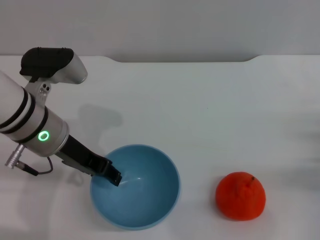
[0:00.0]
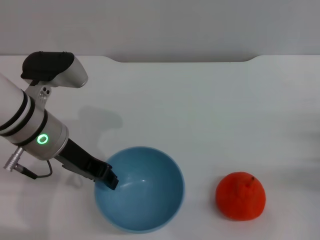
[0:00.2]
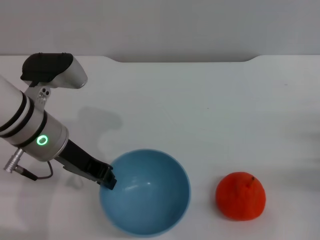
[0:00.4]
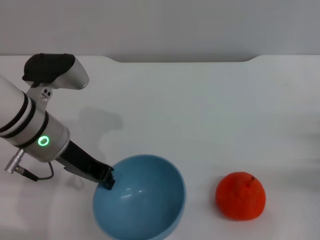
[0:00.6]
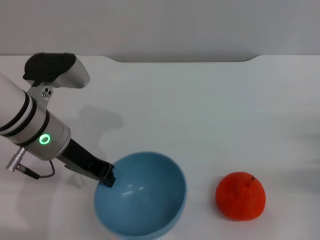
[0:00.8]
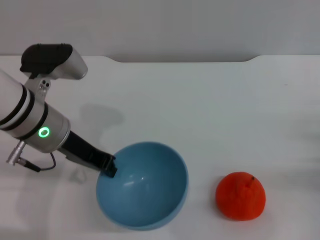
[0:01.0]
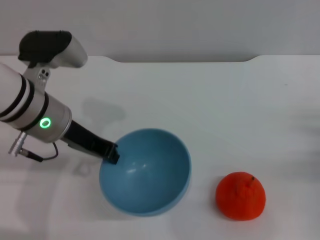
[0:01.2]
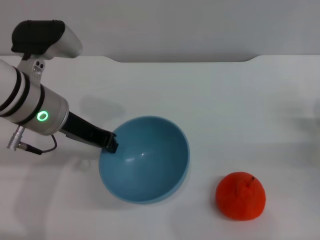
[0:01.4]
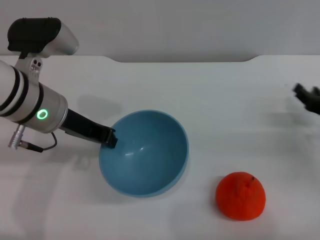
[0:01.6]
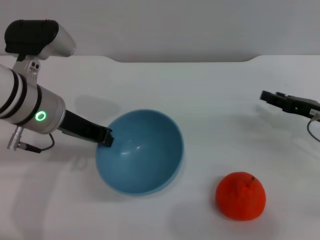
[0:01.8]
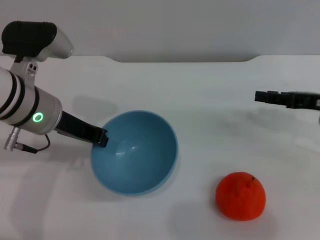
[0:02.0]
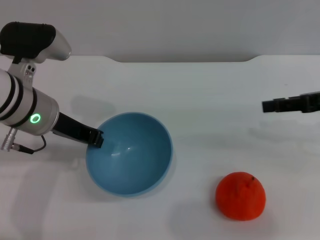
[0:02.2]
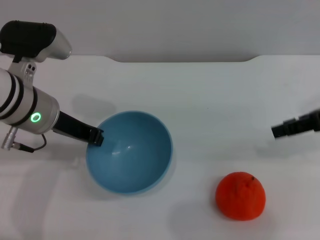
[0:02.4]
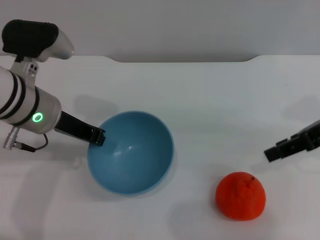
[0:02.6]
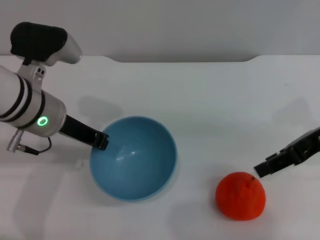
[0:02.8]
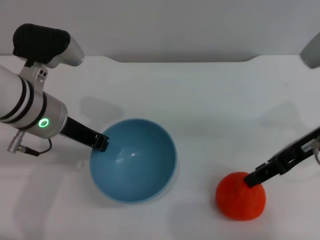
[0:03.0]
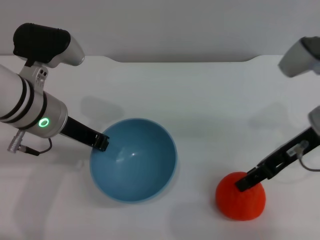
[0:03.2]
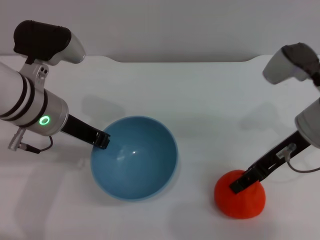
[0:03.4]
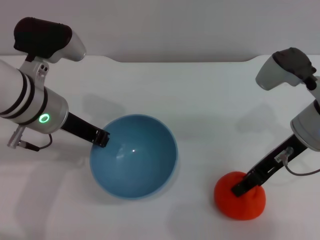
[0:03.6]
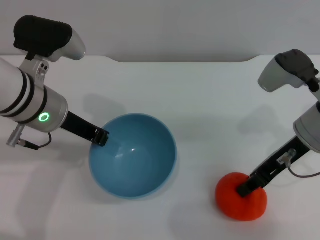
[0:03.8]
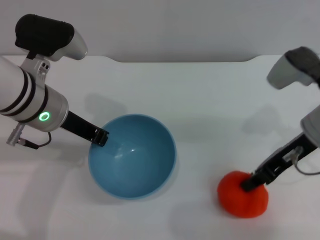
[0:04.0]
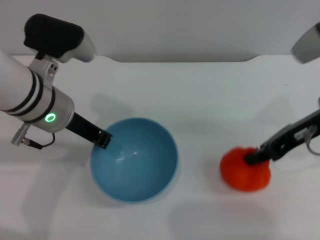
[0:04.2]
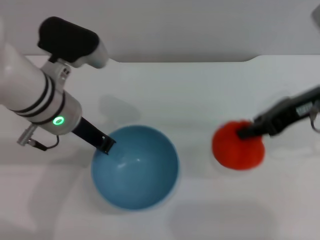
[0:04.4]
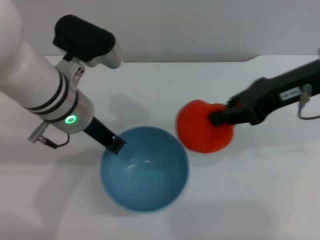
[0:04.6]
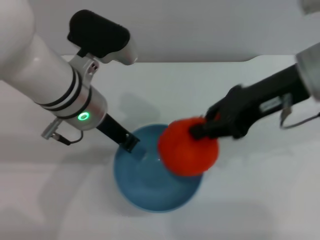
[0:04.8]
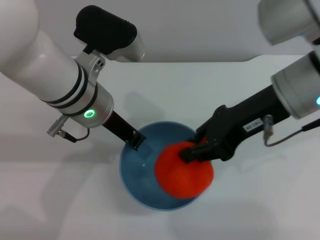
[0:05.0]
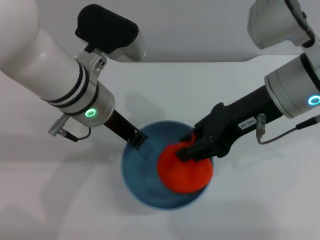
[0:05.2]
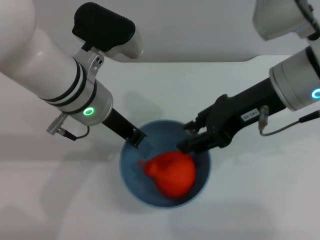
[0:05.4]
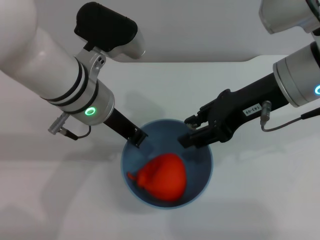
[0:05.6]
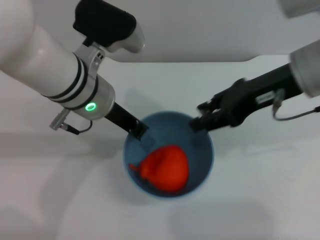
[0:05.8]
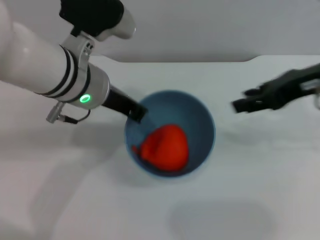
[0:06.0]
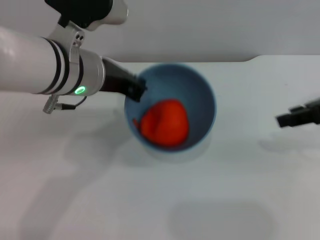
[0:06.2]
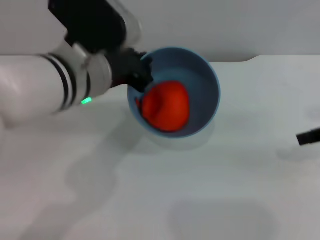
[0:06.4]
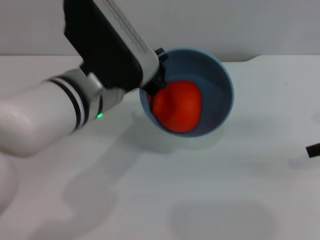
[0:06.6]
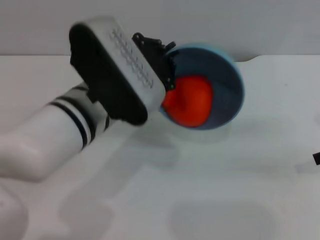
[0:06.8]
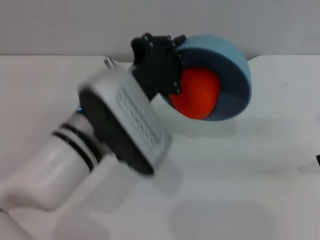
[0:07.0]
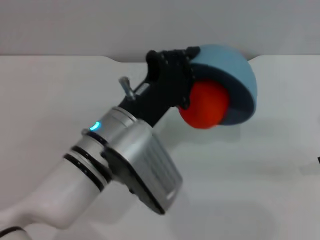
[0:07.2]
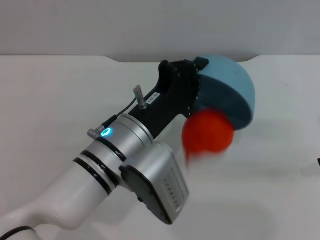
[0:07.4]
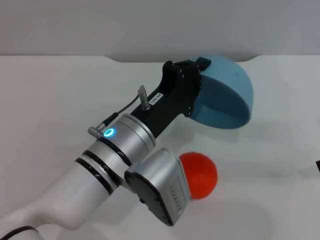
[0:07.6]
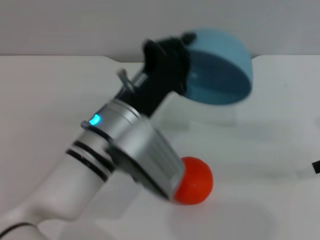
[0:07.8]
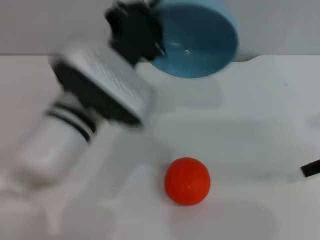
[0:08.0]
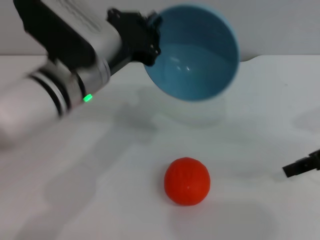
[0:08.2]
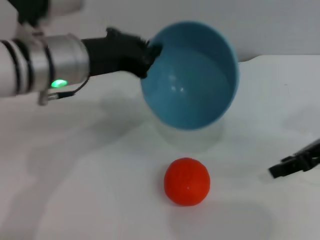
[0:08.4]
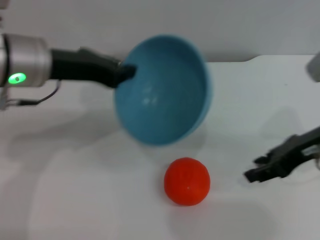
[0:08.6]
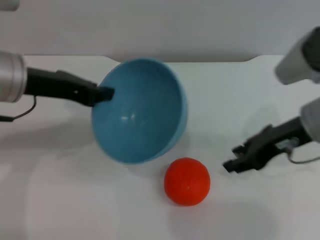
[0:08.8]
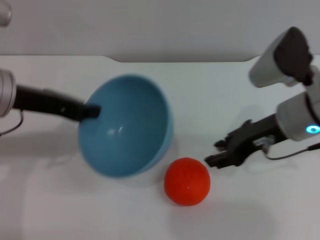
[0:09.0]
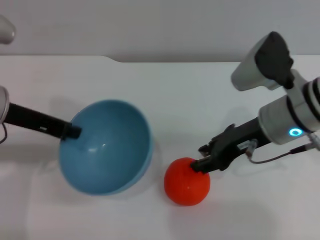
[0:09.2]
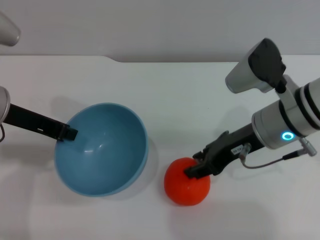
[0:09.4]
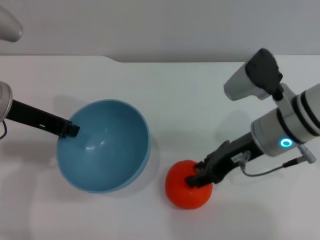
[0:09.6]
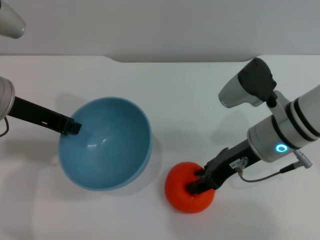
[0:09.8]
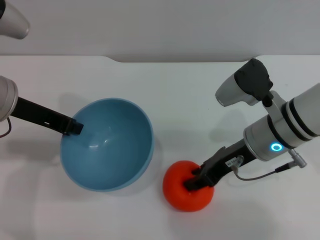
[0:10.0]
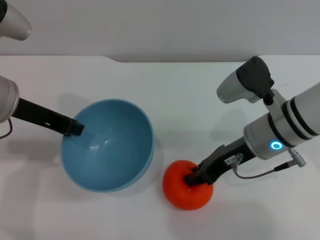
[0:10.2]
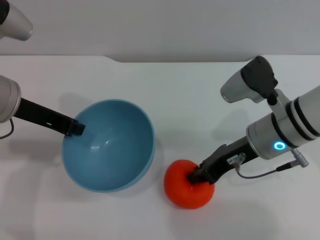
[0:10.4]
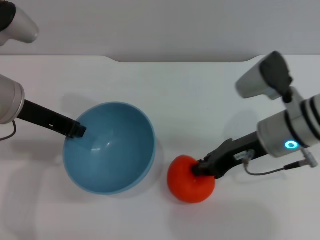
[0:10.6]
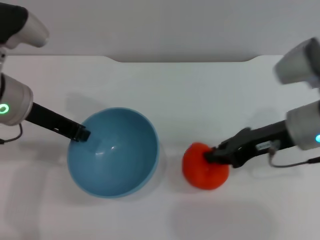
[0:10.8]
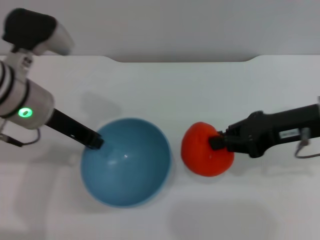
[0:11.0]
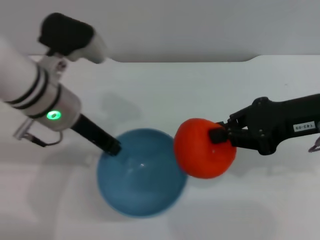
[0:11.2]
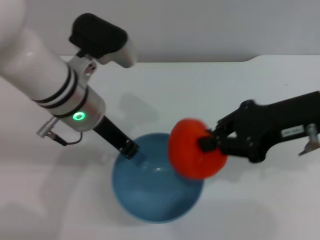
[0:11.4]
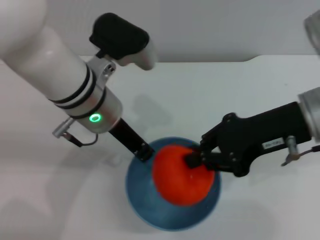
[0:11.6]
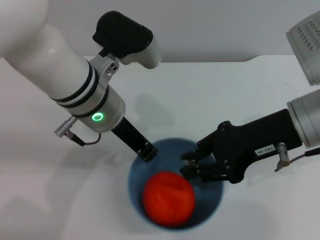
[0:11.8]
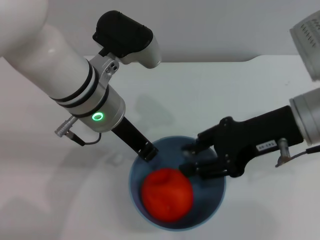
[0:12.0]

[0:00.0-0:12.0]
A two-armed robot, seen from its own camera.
Task of the whole recording: put the orange into the blue bowl and pour it out repeatedly.
Step, 0:01.4 to 0:04.4: Pick up the orange with the right gripper.
Step, 0:04.6 to 0:06.0: Place the orange into the bowl.
Step, 0:06.2 to 0:07.6: Pour the orange out of the bowl.
Step, 0:07.8 to 0:11.0: Pick up the orange with the right gripper.
0:00.0 to 0:01.6: The left gripper closes up. The right gripper heads forward, covering some 5 cm.
0:01.6 to 0:03.0: The right gripper shifts about 15 cm upward and to the left.
0:03.0 to 0:04.4: The right gripper closes.
0:04.4 to 0:06.0: The right gripper reaches some 10 cm to the left, then returns, and opens its fingers.
0:06.0 to 0:07.6: The right gripper shifts approximately 10 cm to the right and downward, while the left gripper goes about 10 cm downward and backward.
0:07.6 to 0:09.0: The left gripper moves to the left and upward, approximately 20 cm. The right gripper goes about 15 cm to the left.
0:09.0 to 0:10.4: The right gripper shifts by approximately 5 cm, and closes.
0:10.4 to 0:12.0: The right gripper moves upward, about 10 cm; the left gripper shifts about 15 cm to the right.

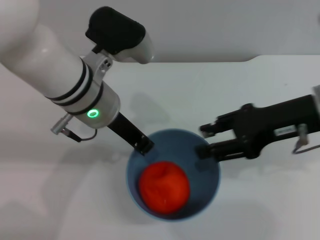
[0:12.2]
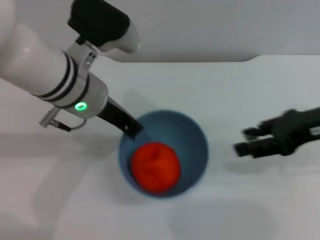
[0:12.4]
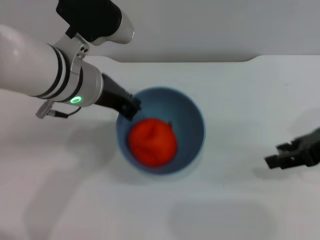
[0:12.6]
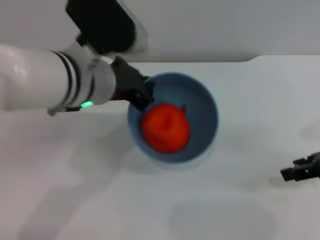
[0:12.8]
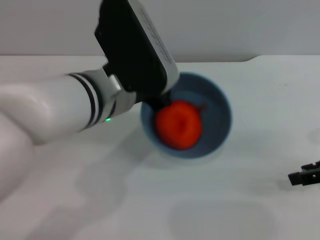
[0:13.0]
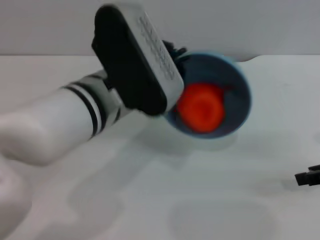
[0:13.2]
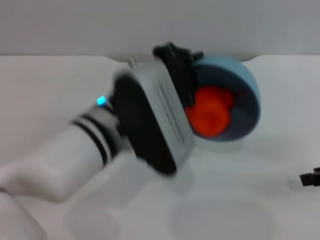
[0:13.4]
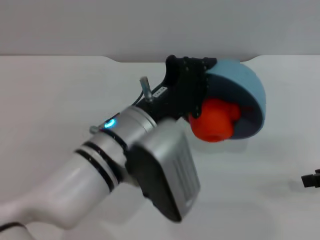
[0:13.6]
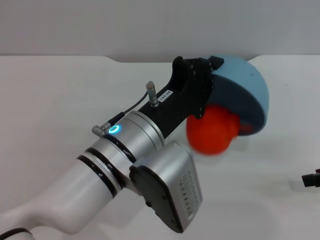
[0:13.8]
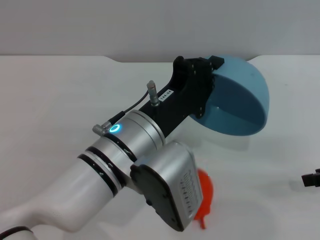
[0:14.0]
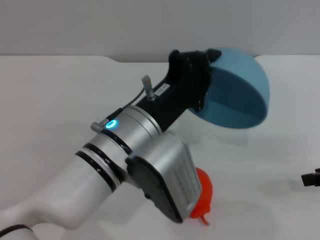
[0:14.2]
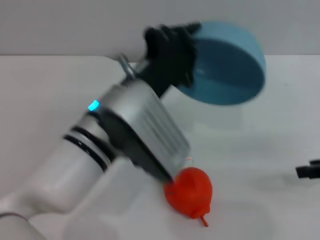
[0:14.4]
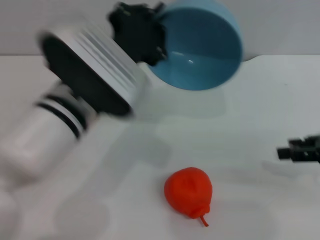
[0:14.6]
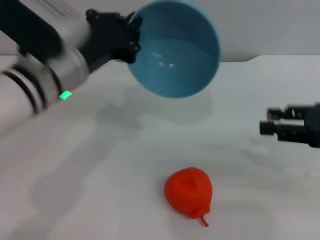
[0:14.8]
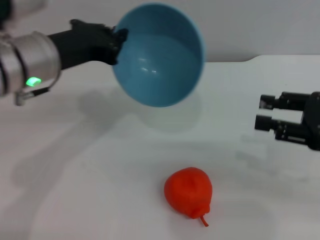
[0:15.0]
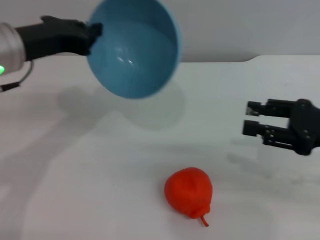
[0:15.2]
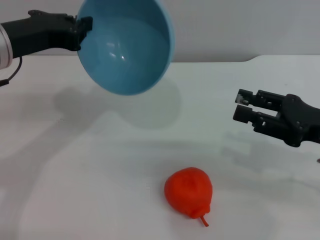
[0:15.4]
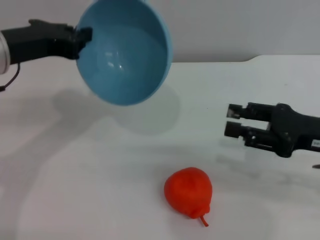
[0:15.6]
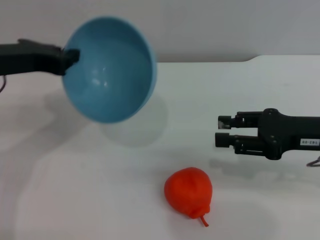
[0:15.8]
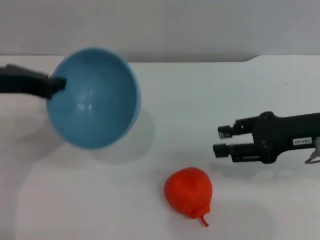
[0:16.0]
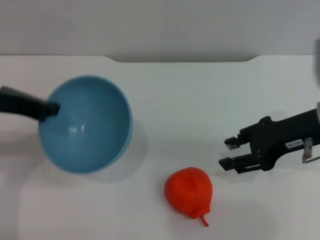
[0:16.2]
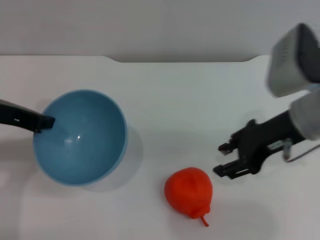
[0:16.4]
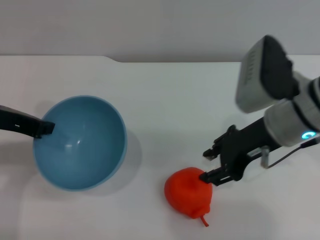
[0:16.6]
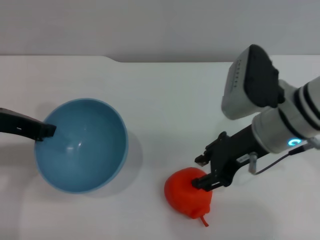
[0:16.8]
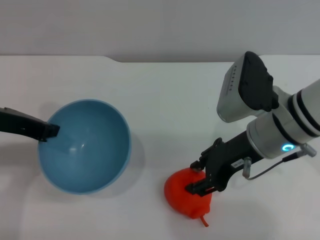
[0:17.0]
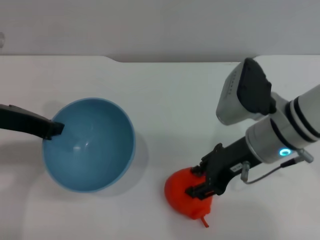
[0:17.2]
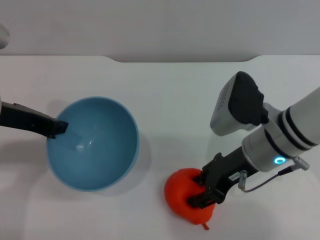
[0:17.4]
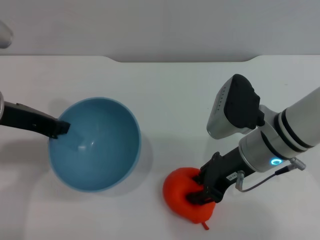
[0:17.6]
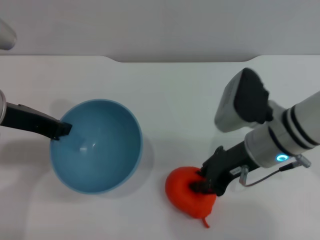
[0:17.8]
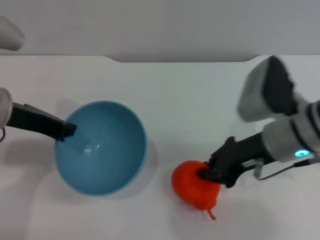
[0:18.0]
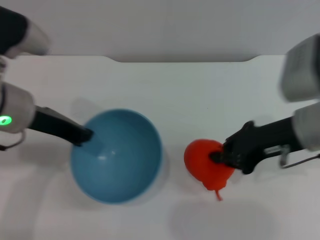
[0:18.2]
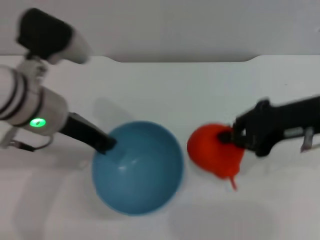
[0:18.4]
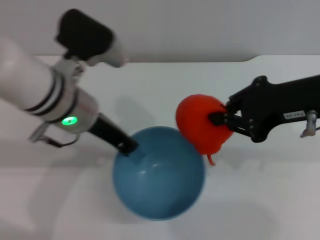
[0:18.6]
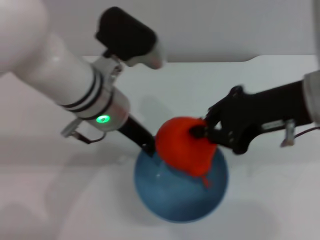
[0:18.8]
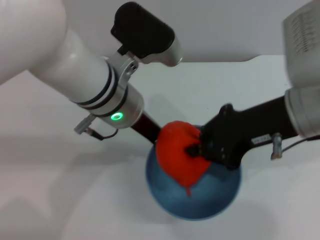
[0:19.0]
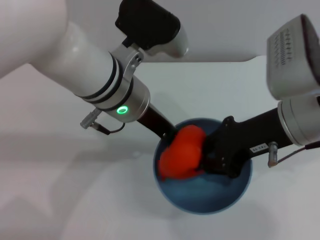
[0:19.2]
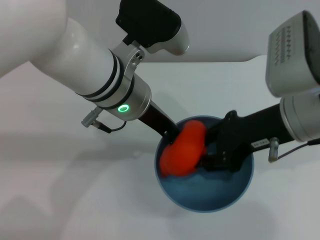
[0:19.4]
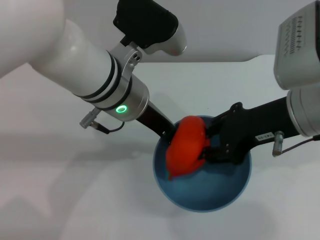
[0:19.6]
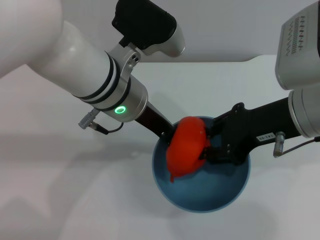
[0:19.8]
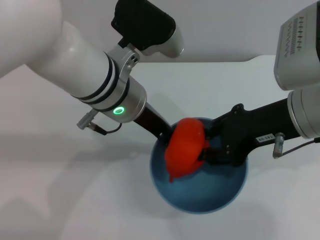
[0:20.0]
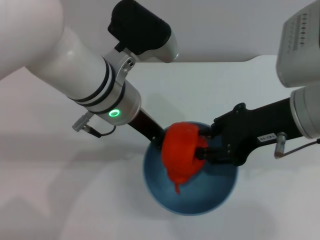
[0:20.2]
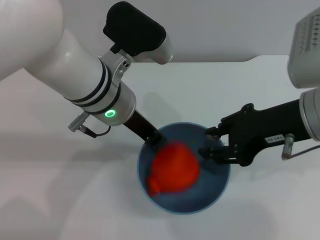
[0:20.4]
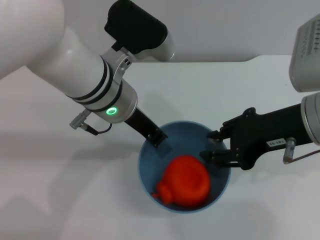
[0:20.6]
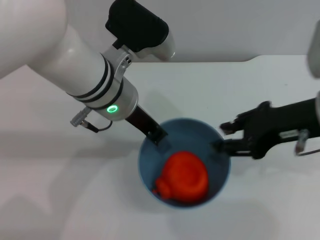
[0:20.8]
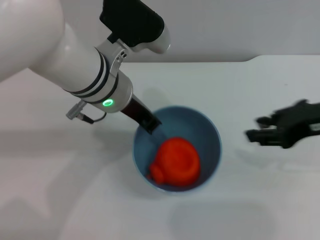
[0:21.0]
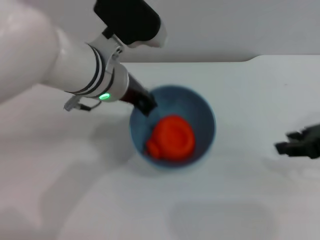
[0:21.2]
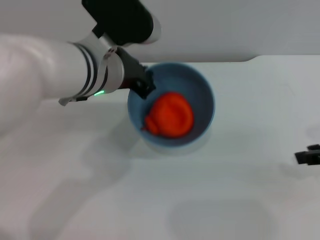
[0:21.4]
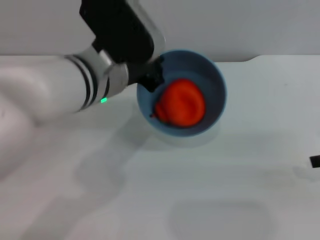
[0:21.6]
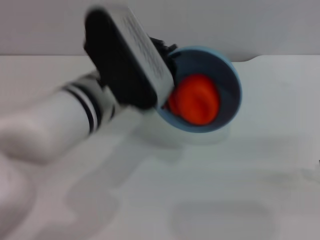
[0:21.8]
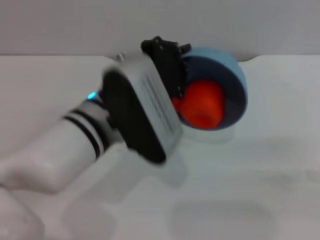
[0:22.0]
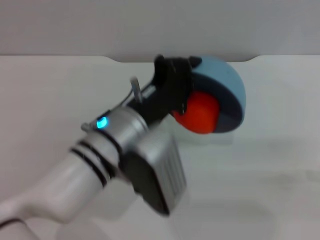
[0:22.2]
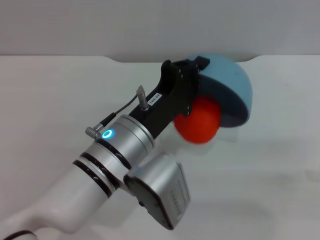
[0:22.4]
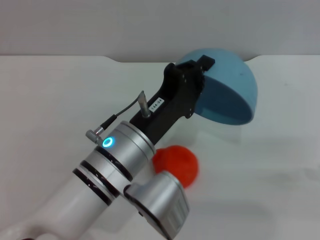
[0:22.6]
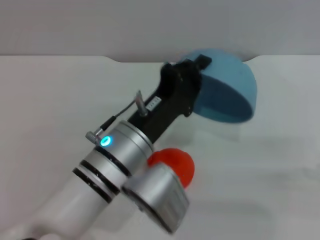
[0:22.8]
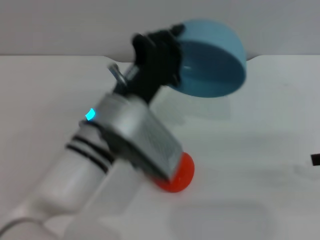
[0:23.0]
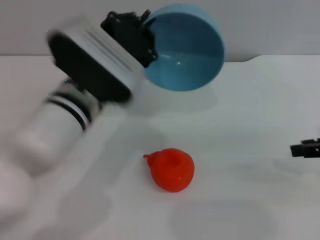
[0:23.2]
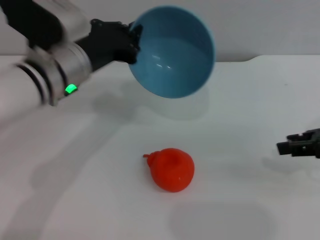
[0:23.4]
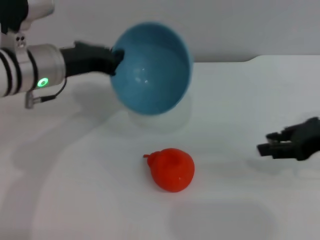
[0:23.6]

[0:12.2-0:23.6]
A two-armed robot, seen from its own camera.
Task of the whole recording: put the orange into the blue bowl and pour it out repeatedly.
Step, 0:12.6 to 0:14.0: Pour the orange out of the bowl.
Step, 0:14.2 to 0:18.2: Pick up the orange with the right gripper.
Step, 0:18.4 to 0:20.4: Place the orange into the bowl.
Step, 0:20.6 to 0:22.6: Pour the orange out of the bowl.
0:12.2 to 0:13.6: The right gripper shifts approximately 10 cm to the right. Meanwhile the left gripper is displaced backward by roughly 10 cm.
0:13.6 to 0:15.0: The left gripper goes roughly 15 cm to the left, forward and upward.
0:15.0 to 0:16.4: The right gripper heads to the left and forward, covering about 15 cm, while the left gripper moves to the left, approximately 5 cm.
0:16.4 to 0:17.8: The right gripper travels downward by about 5 cm.
0:17.8 to 0:19.4: The left gripper is displaced to the right by some 15 cm. The right gripper heads upward, covering some 10 cm.
0:20.8 to 0:22.2: The right gripper travels to the right by roughly 15 cm, while the left gripper shifts approximately 10 cm backward and downward.
0:22.2 to 0:23.6: The right gripper moves to the left, about 5 cm. The left gripper heads to the left and forward, covering about 15 cm.
